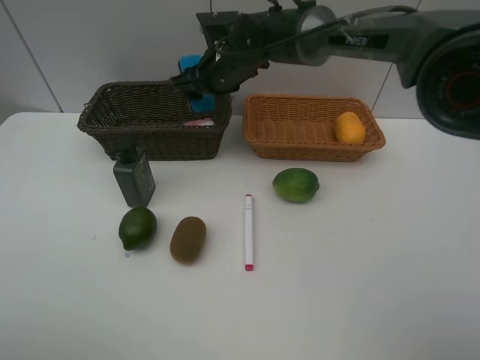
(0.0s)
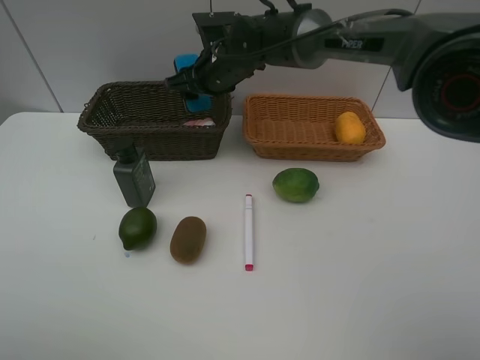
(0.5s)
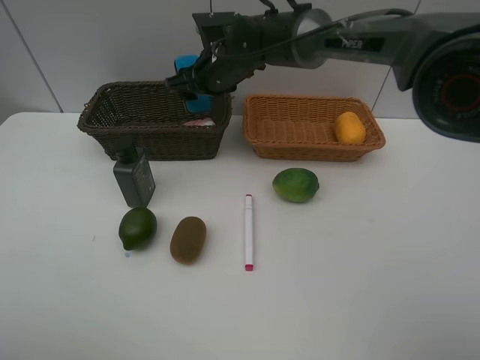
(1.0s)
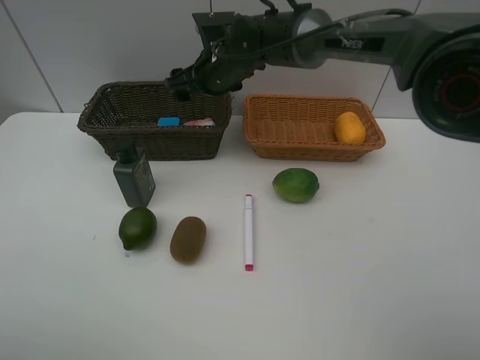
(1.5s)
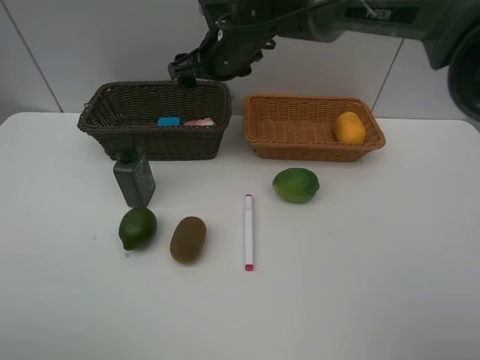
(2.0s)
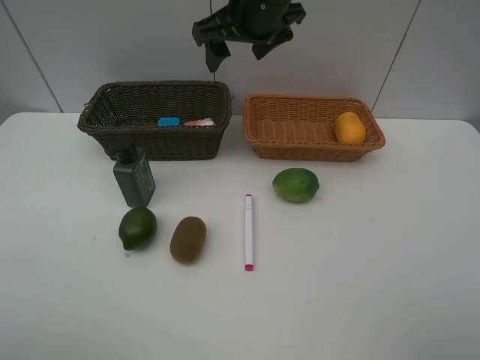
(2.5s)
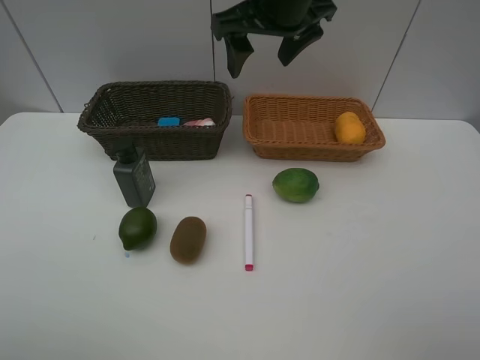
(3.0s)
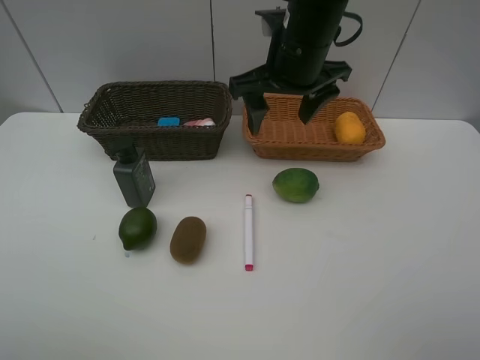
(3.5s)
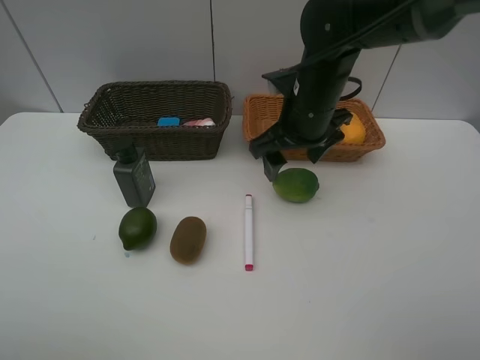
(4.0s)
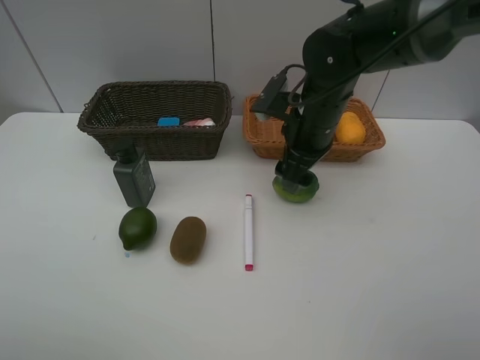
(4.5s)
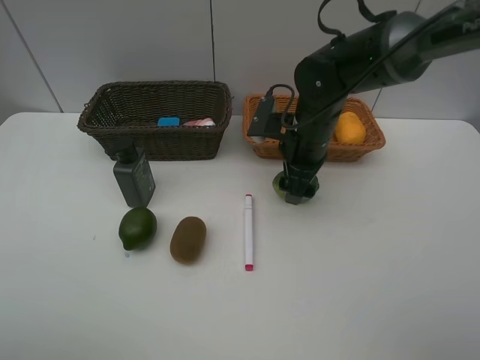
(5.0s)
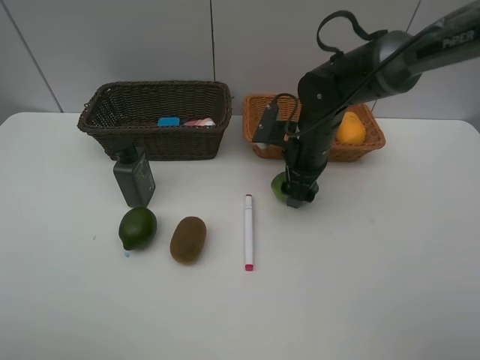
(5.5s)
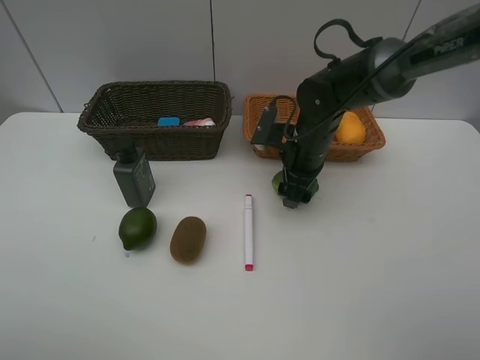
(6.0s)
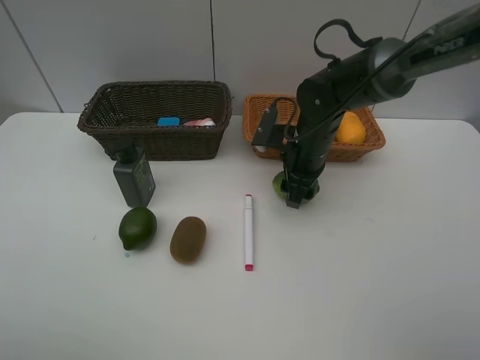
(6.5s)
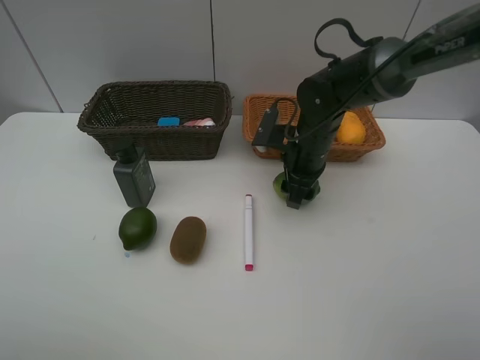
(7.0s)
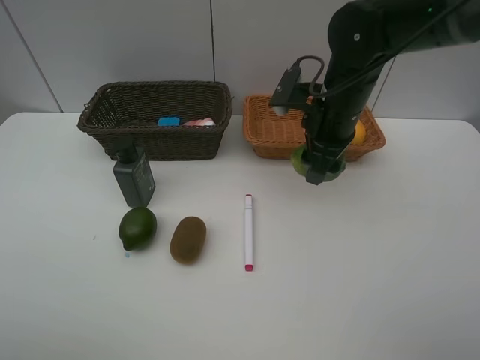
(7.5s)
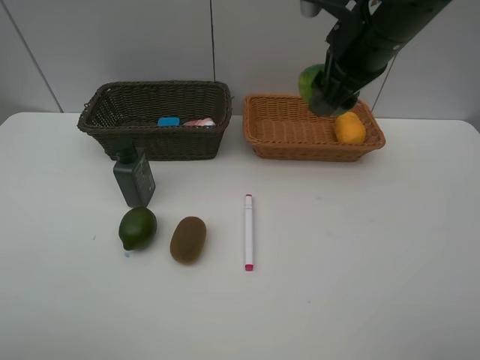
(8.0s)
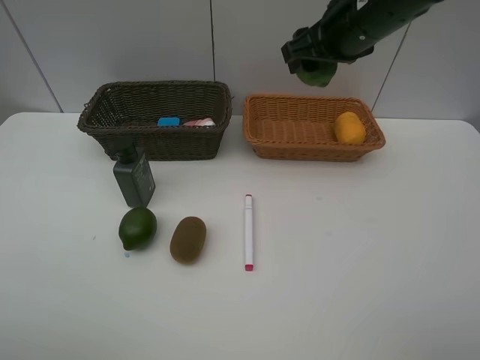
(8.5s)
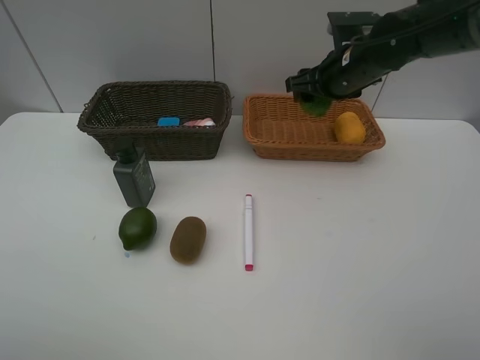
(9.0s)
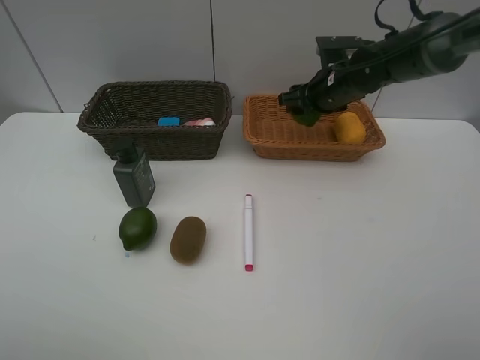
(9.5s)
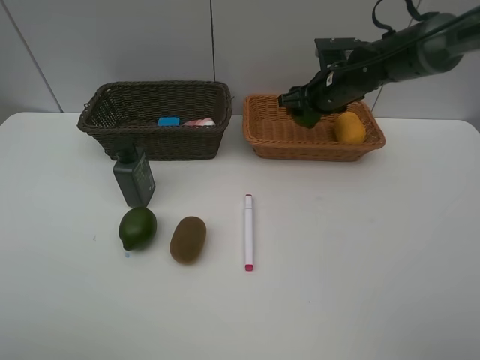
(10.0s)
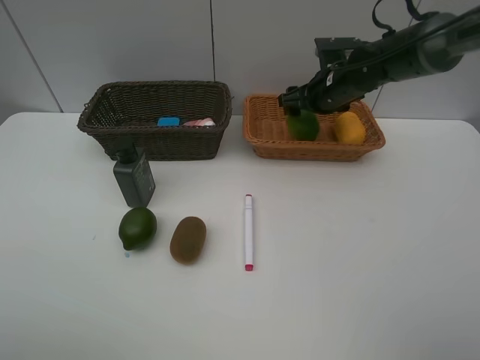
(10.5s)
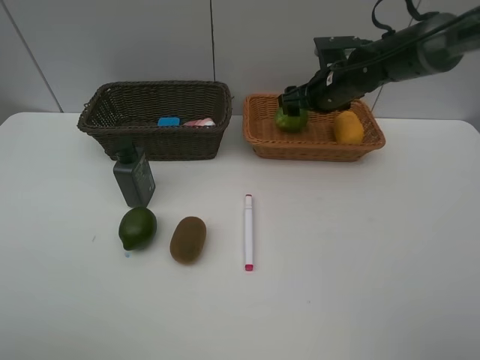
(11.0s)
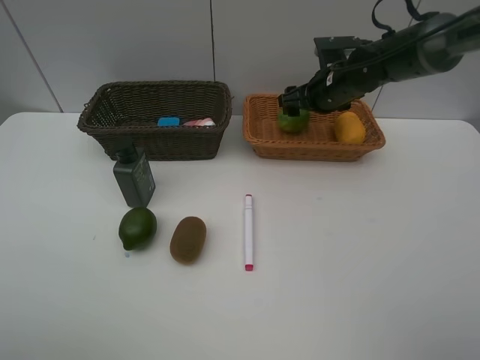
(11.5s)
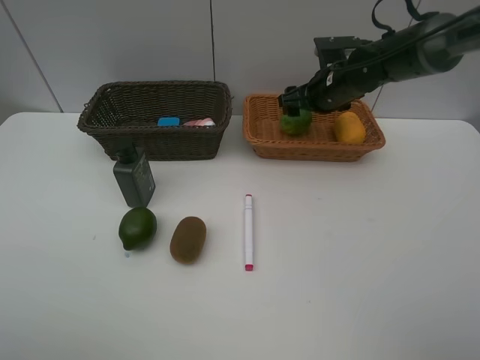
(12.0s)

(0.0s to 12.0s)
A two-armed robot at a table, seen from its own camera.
Task of the whole recording: Place multiple objects separately in different baskets.
Step, 2.0s - 7.0s: Pick up the lime with right gripper.
0.0s - 2.0s: The right gripper opens up.
2.0s - 4.0s: The right gripper heads to the right and backward, covering some 15 cm, and moves some 10 cm upward and comes back.
4.0s - 6.0s: The right gripper goes roughly 10 cm downward.
6.0s - 8.0s: The right gripper shifts roughly 20 cm upward.
8.0s - 10.0s: The right gripper moves downward and forward, about 20 cm.
10.0s - 12.0s: The two grippers keep their place.

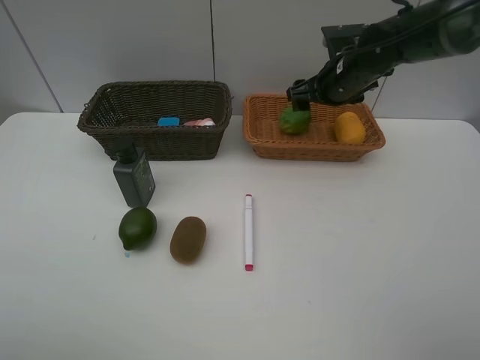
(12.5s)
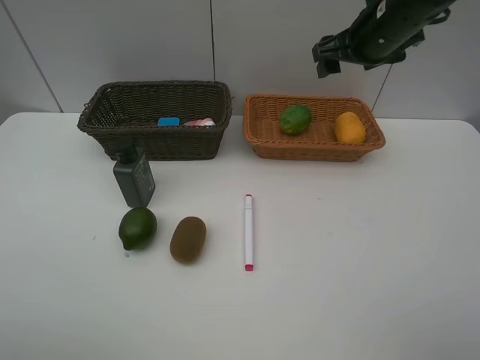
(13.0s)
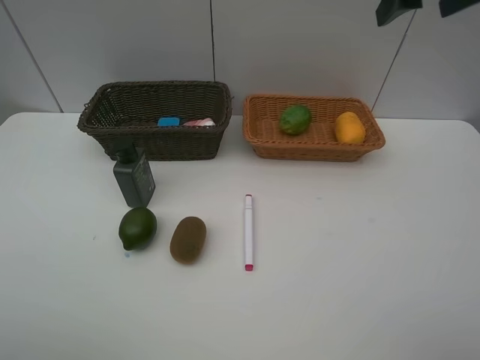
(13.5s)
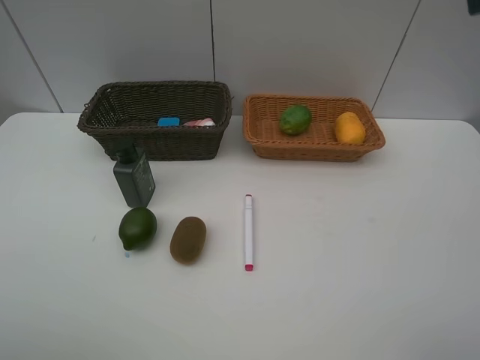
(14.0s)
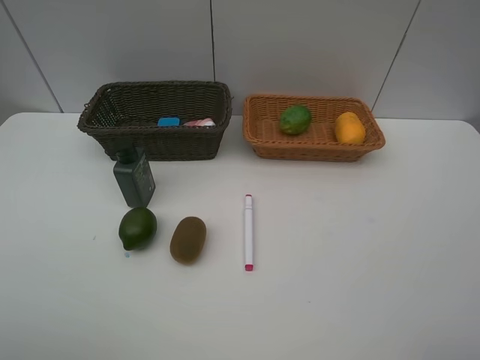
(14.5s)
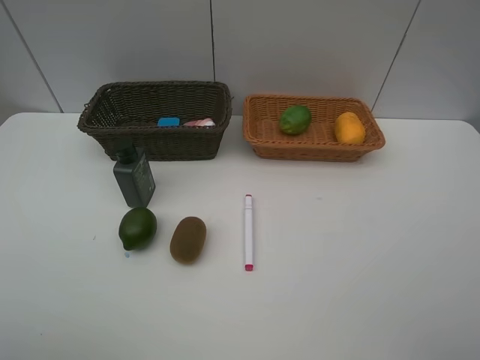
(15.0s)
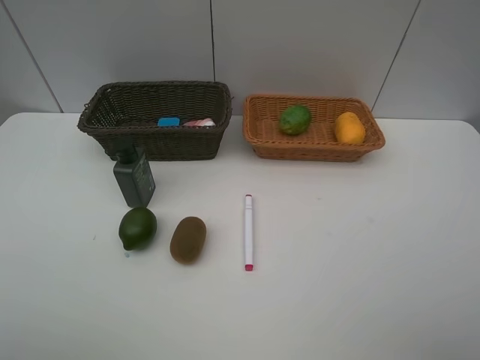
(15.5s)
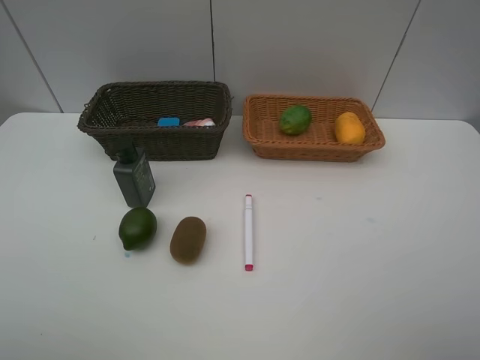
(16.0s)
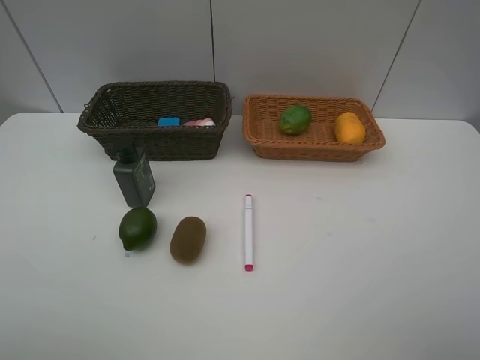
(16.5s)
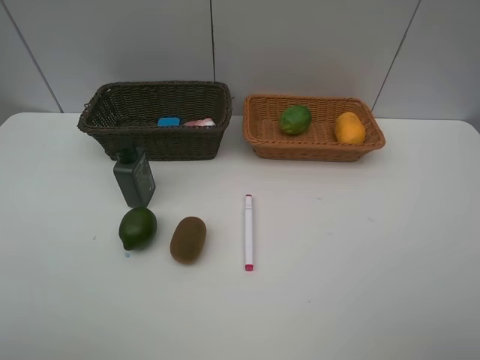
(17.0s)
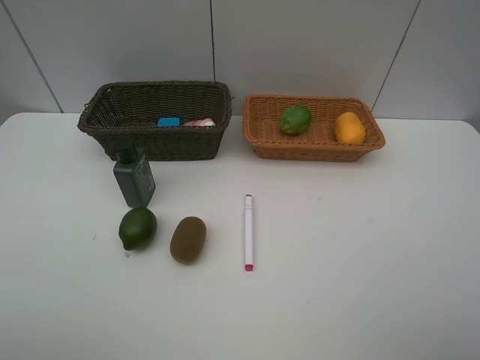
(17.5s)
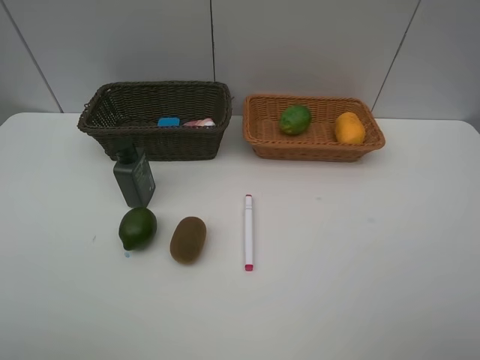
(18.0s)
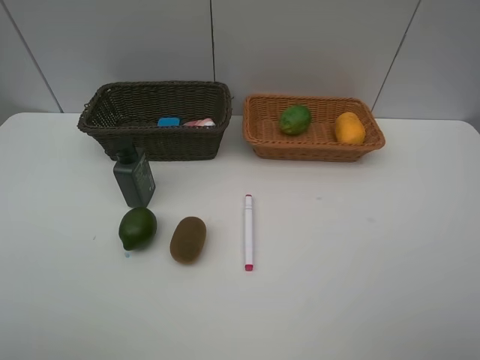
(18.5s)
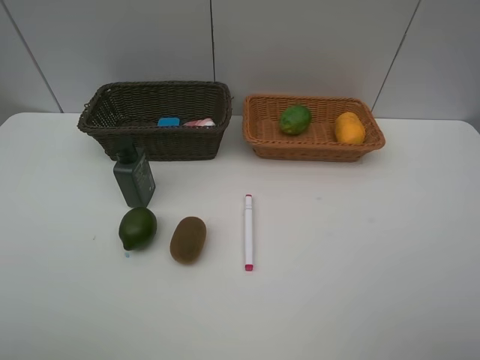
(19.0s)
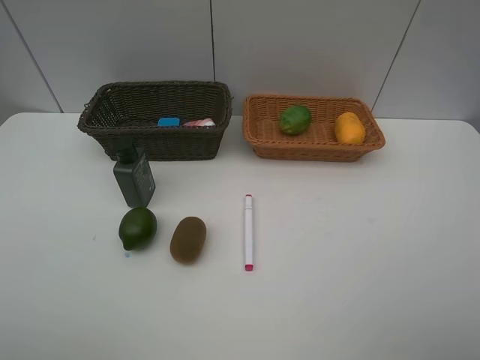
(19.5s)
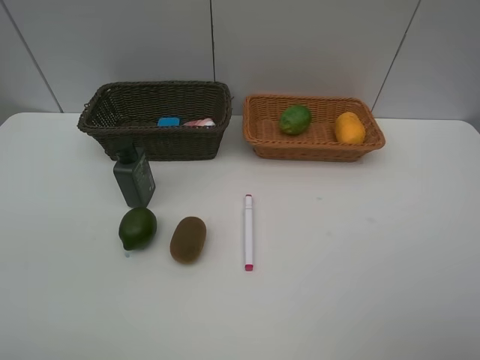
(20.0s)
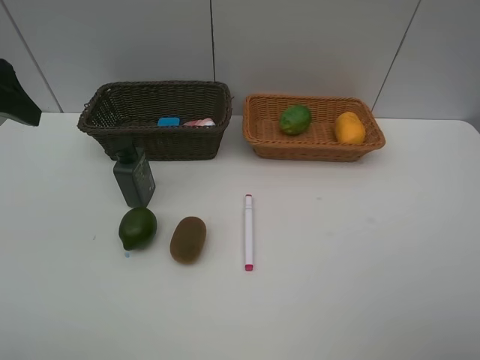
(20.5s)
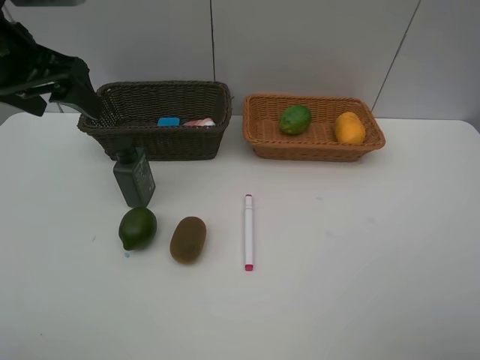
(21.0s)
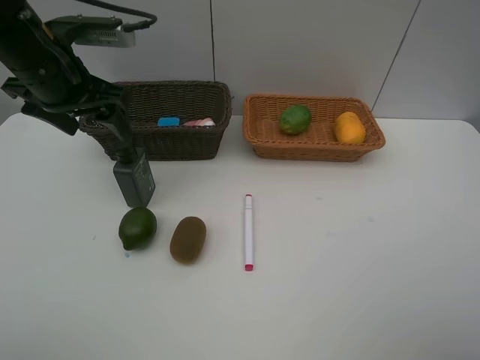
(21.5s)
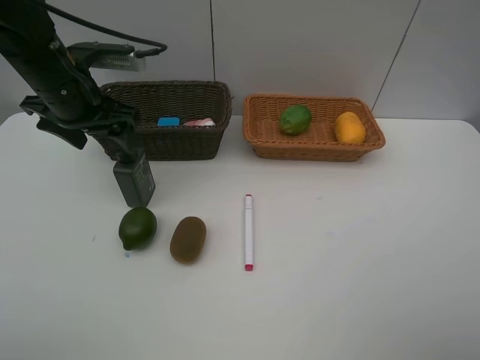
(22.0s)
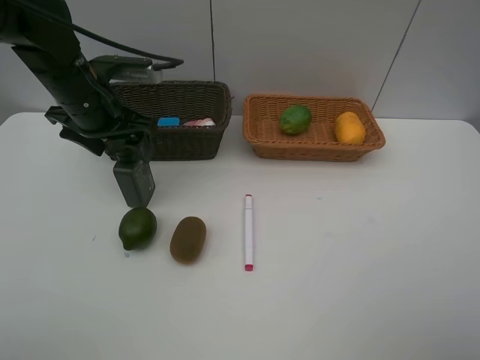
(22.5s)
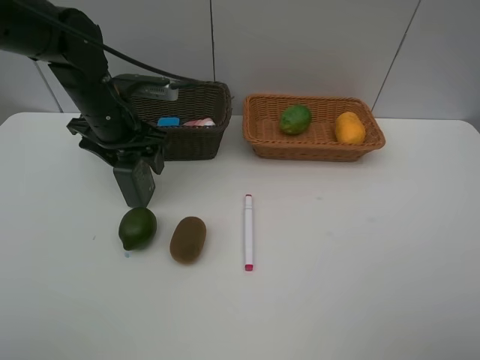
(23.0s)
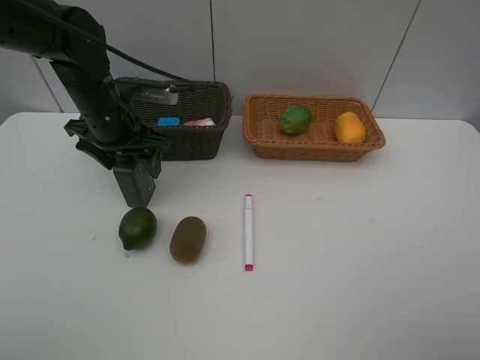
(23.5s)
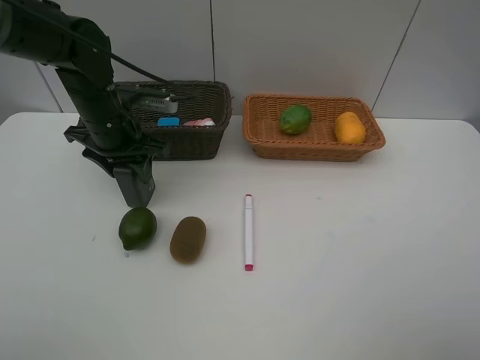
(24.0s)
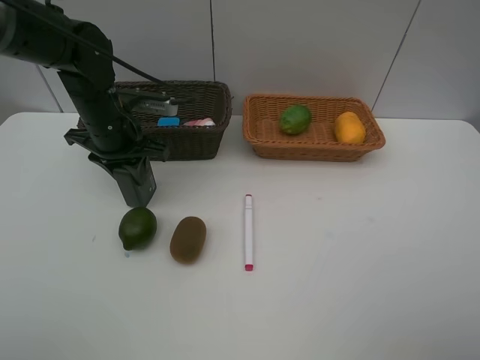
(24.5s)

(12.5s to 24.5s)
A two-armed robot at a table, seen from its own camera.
Task of the whole recording: Place multiple objects separately in different baskets.
12.5s - 14.5s: The right gripper moves backward and upward, approximately 35 cm.
18.5s - 20.5s: The left gripper shifts some 25 cm forward.
20.5s - 22.5s: The left gripper travels downward, forward and to the right by some 20 cm.
22.5s - 24.5s: The left gripper closes up.

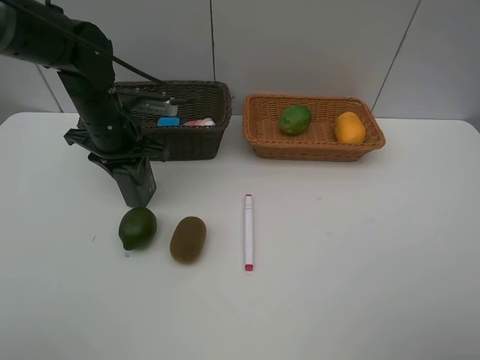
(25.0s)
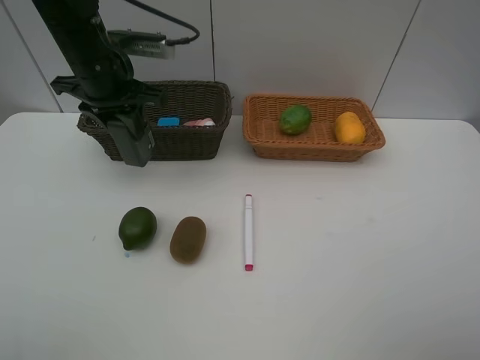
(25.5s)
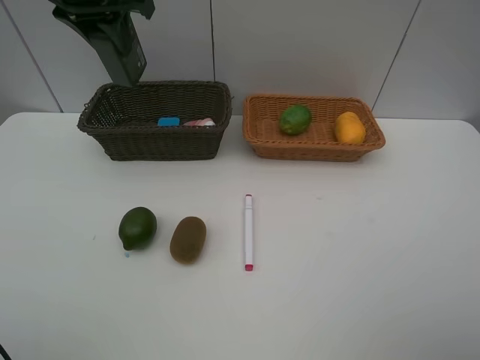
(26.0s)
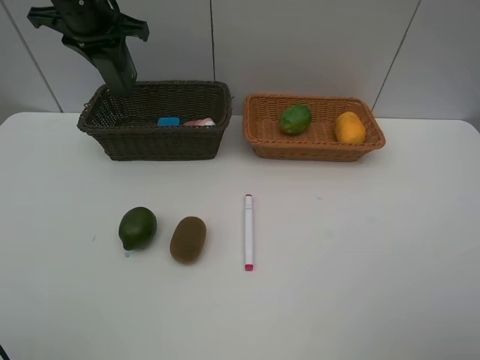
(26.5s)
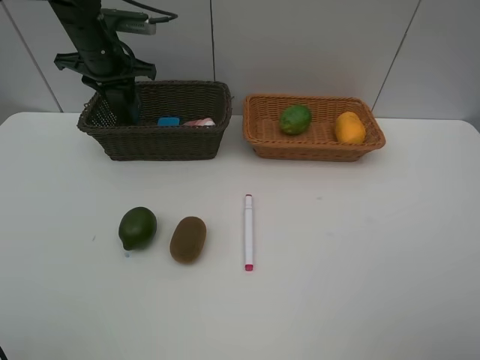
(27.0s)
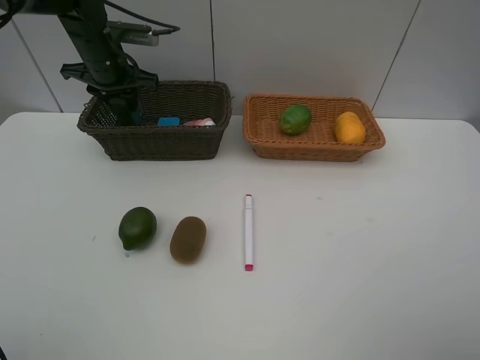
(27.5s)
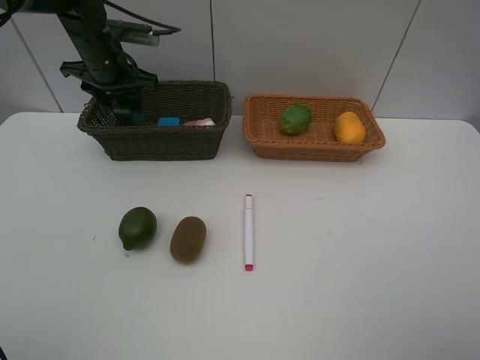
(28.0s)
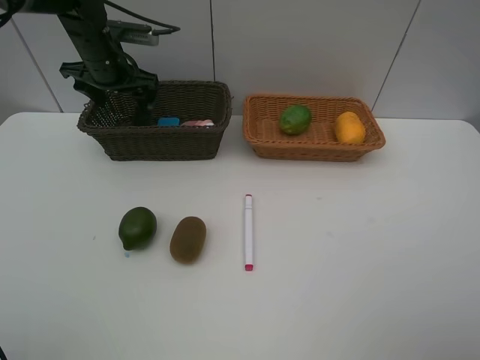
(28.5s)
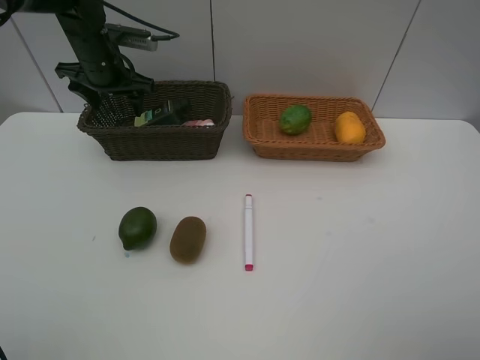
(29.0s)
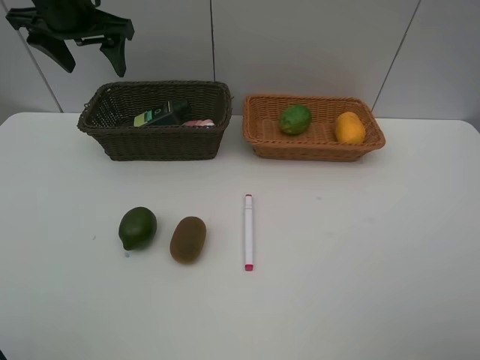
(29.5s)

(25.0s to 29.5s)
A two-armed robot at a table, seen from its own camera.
Task of the whole recording: Place multiple objects separately in different baskets.
Step, 25.5s - 29.0s: Place the hard facial cleanser in the dark basket with left gripper.
25.0s - 27.0s: The left gripper goes about 10 cm forward, and moves approximately 20 cm upward and comes back.
27.0s - 29.5s: The left gripper goes some 10 cm upward and backward, and opens.
